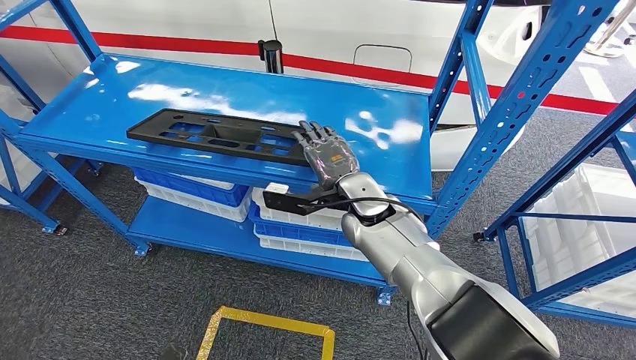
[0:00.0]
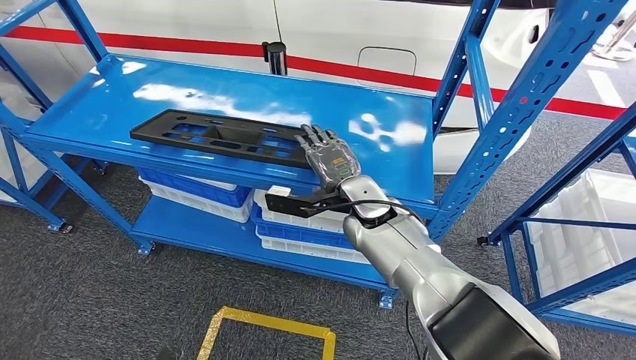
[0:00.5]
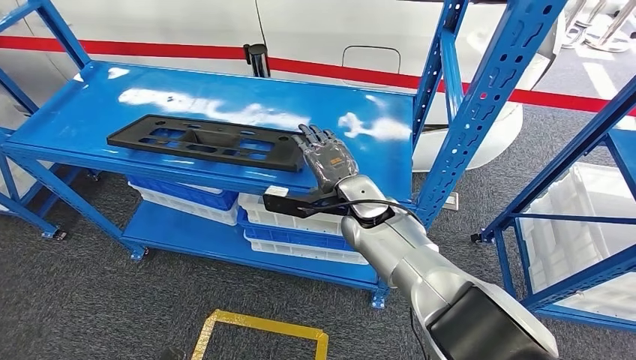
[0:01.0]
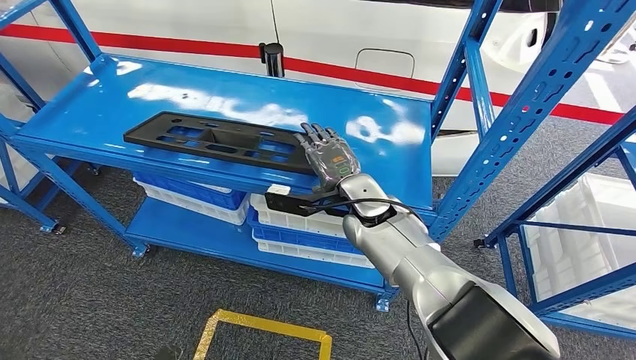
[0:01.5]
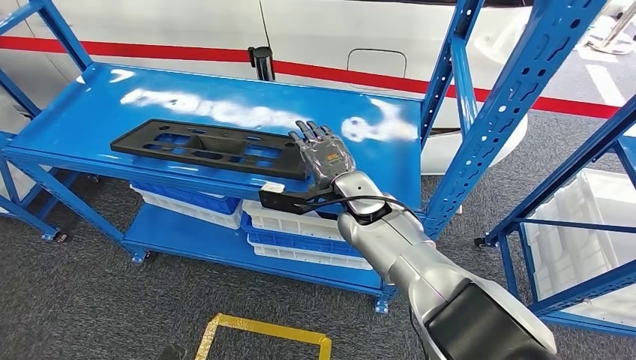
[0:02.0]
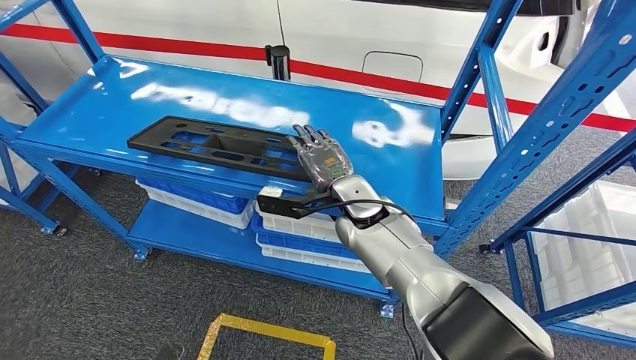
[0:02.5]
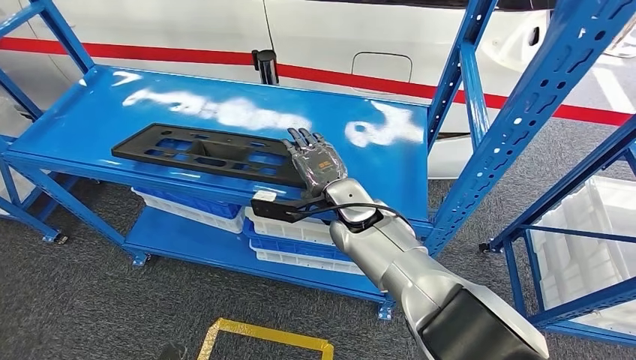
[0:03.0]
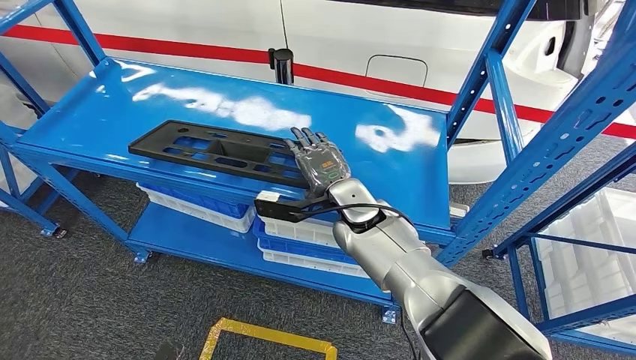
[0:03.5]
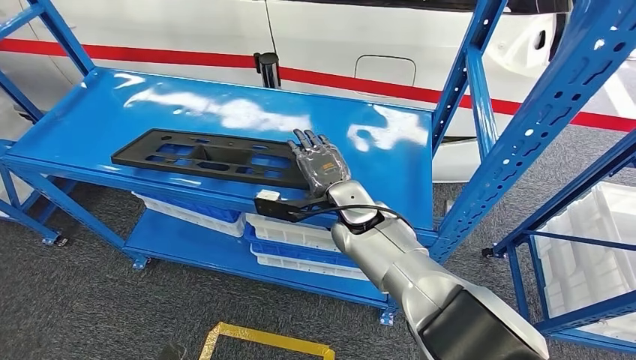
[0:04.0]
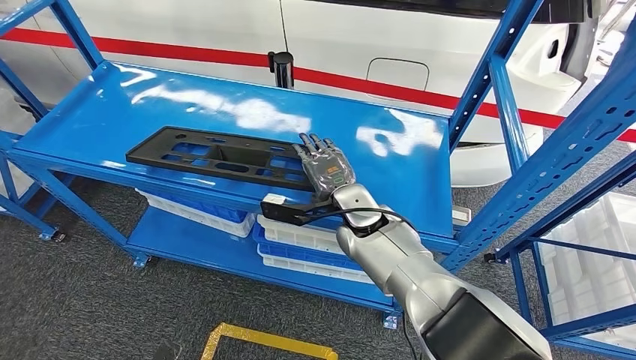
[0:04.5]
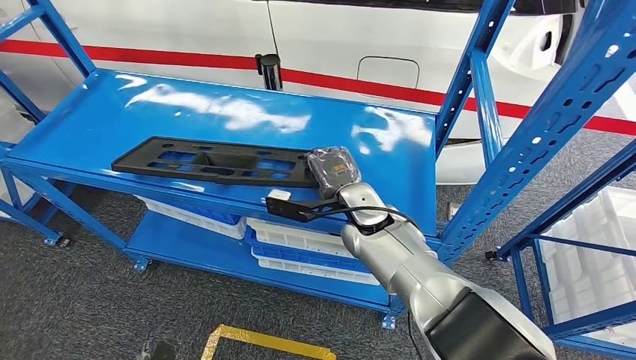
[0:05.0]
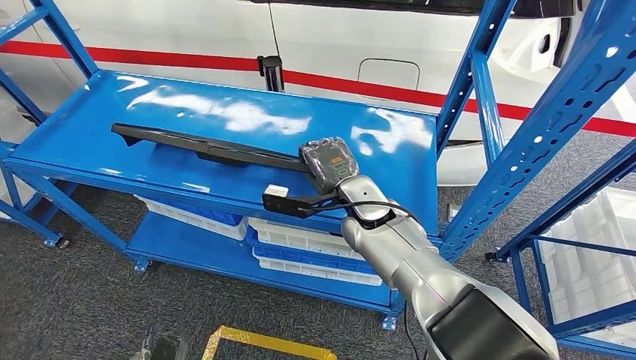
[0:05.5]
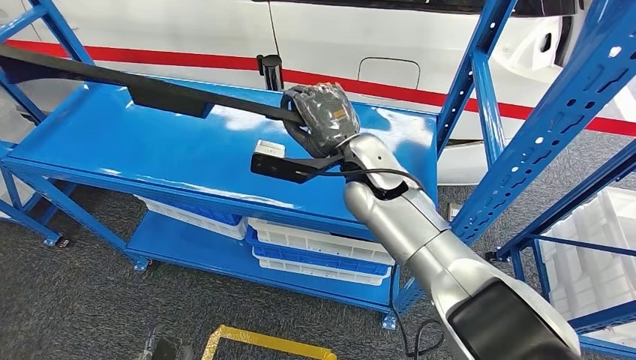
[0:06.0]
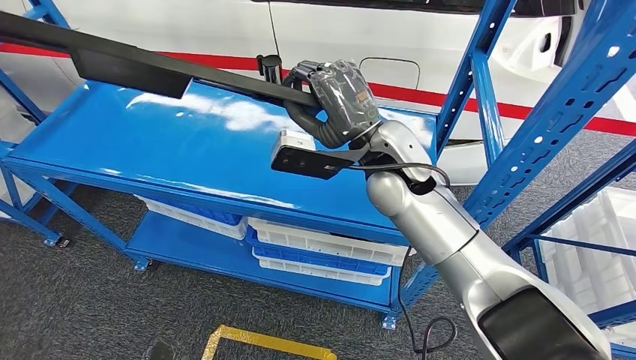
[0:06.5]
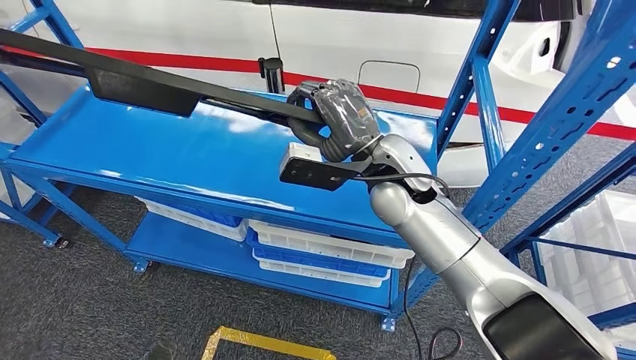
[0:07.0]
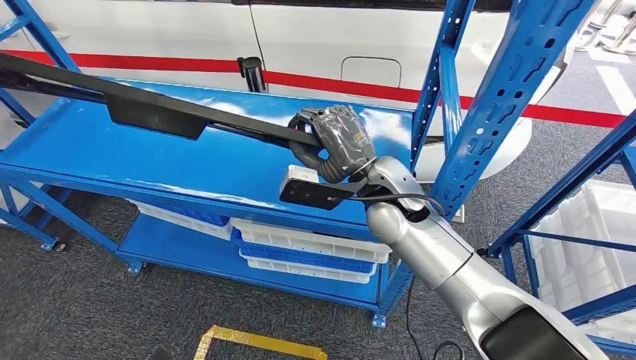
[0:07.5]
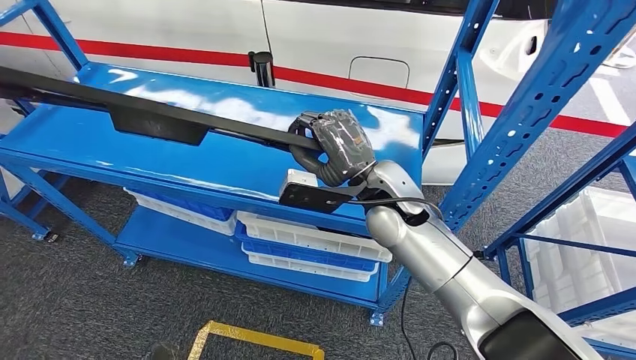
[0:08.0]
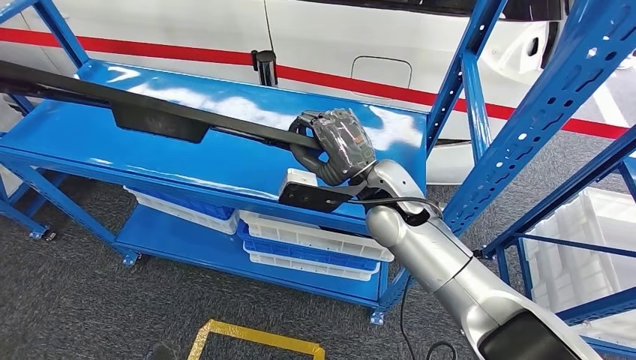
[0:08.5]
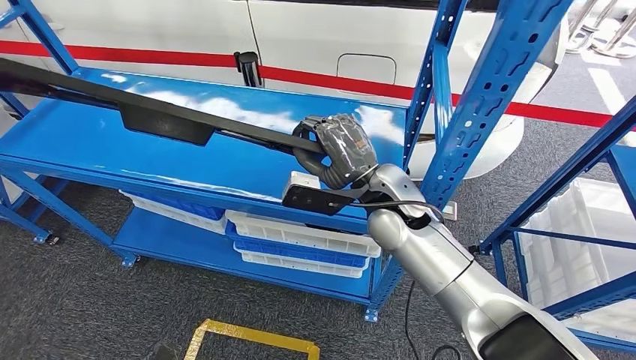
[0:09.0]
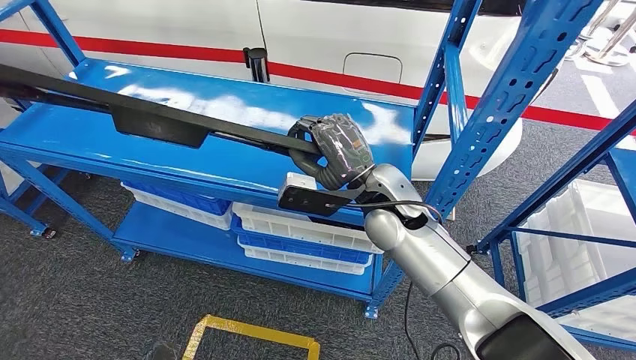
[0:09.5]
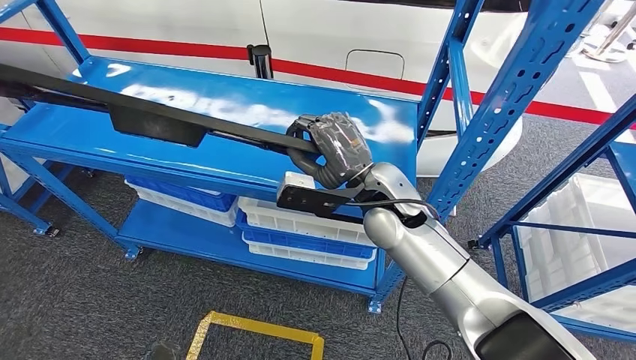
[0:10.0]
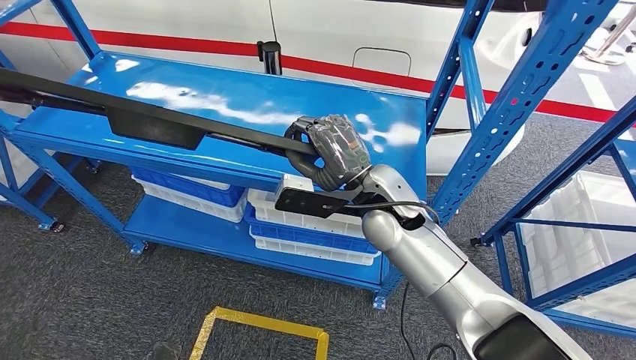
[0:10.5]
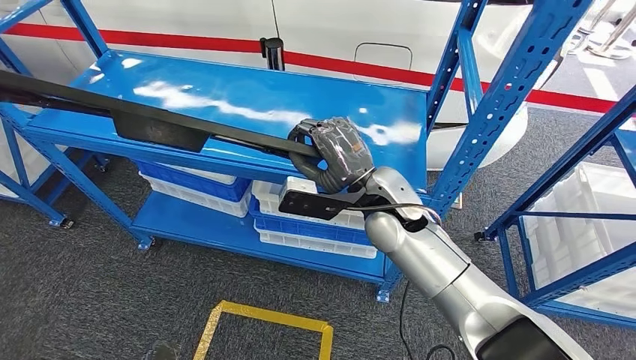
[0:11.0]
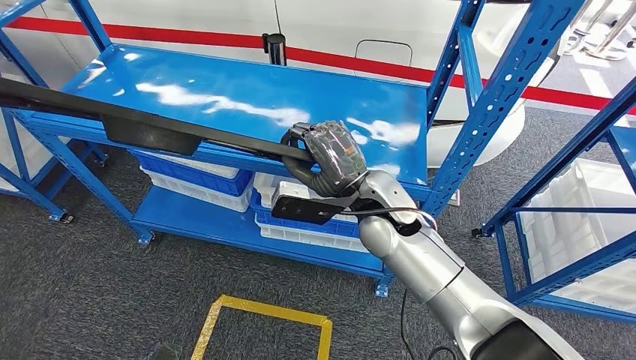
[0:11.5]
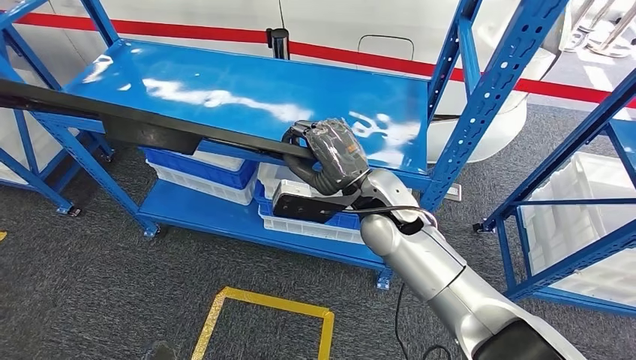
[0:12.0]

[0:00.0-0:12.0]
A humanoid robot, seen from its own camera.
Step, 0:00.0 to 0:06.0: Pick up the large material from the shelf.

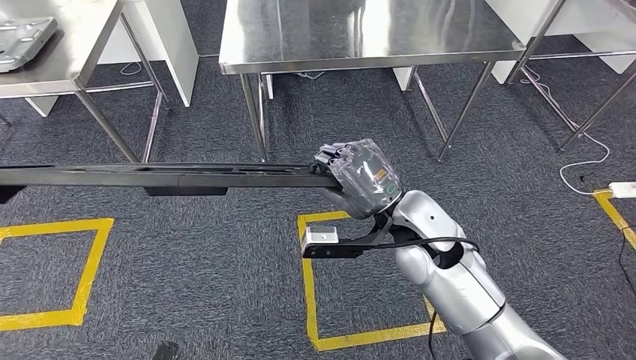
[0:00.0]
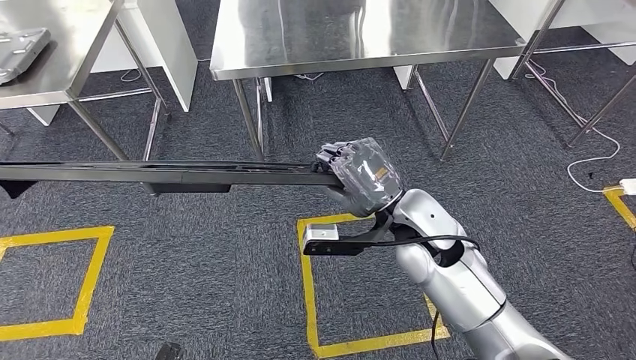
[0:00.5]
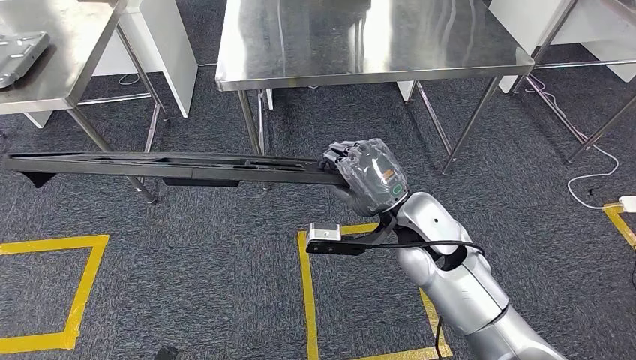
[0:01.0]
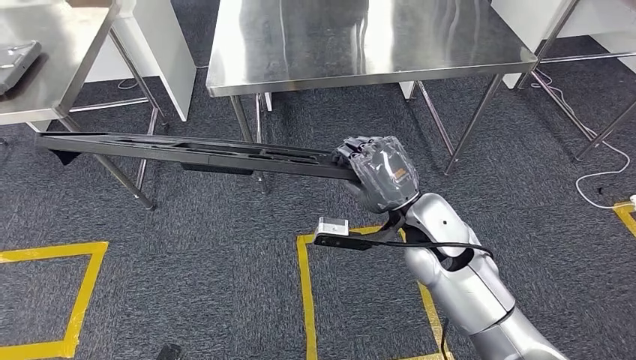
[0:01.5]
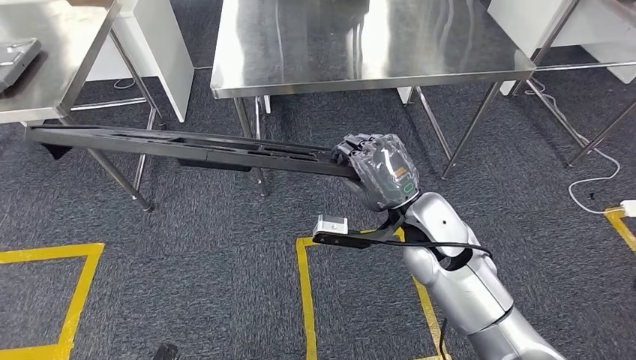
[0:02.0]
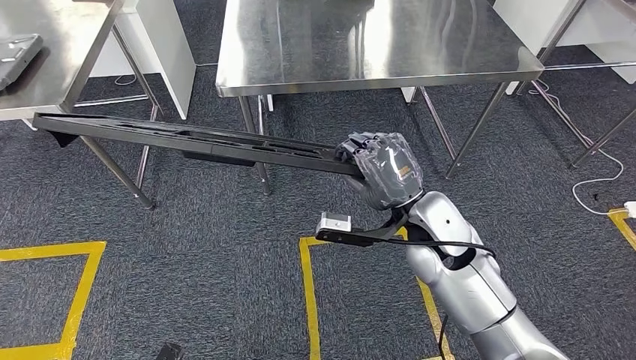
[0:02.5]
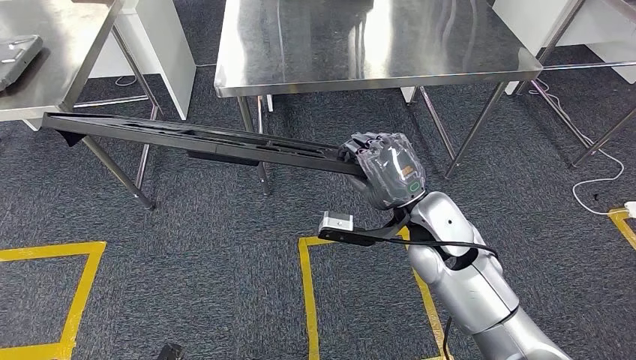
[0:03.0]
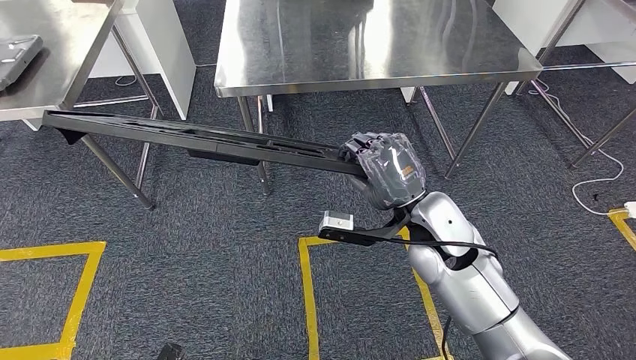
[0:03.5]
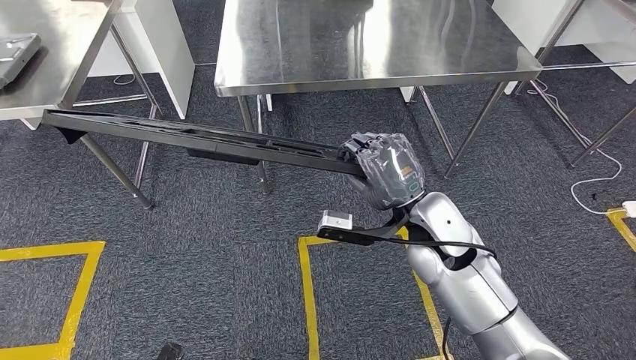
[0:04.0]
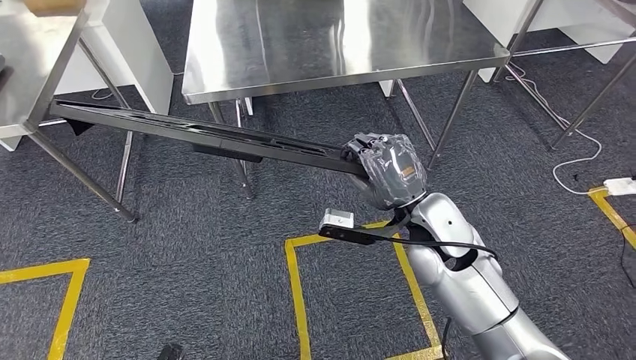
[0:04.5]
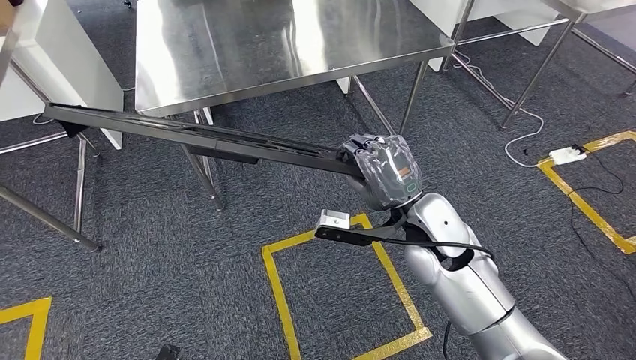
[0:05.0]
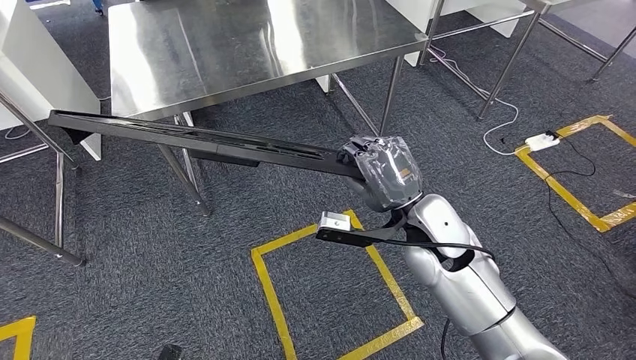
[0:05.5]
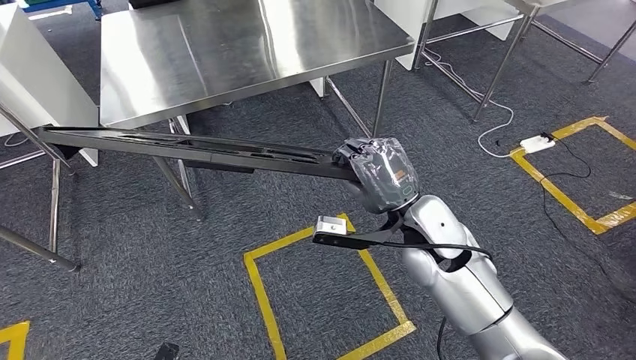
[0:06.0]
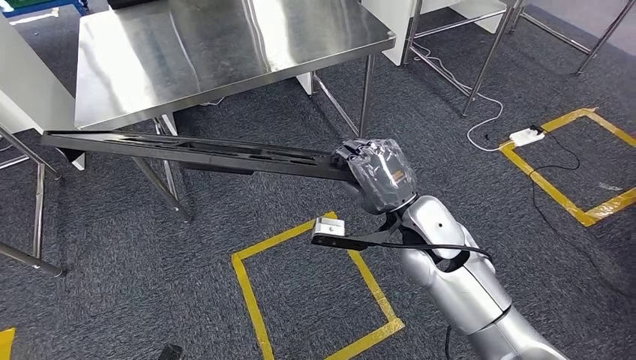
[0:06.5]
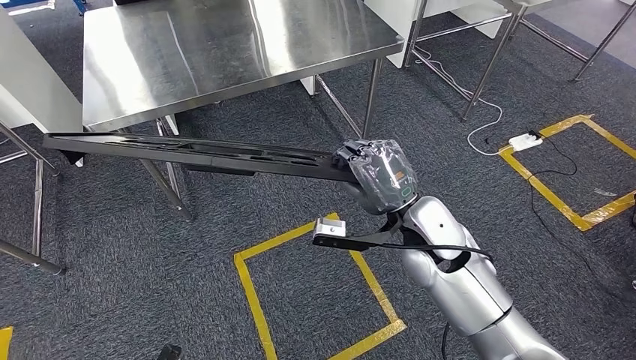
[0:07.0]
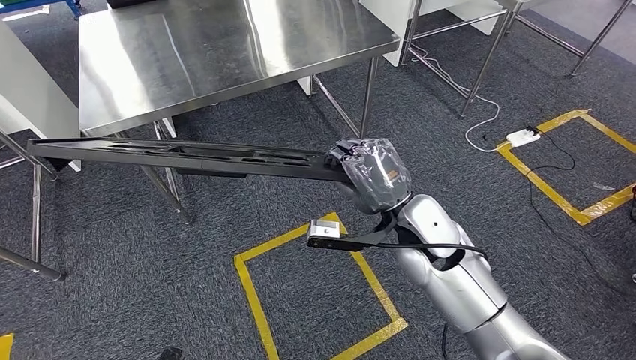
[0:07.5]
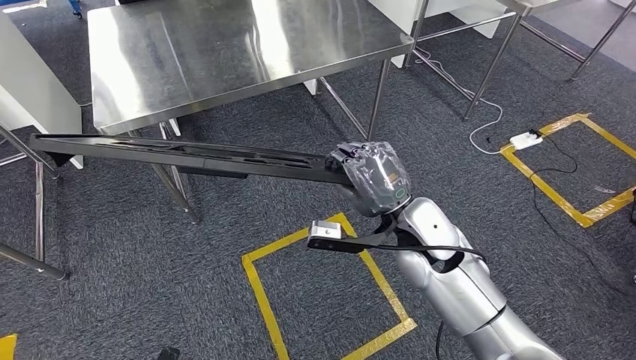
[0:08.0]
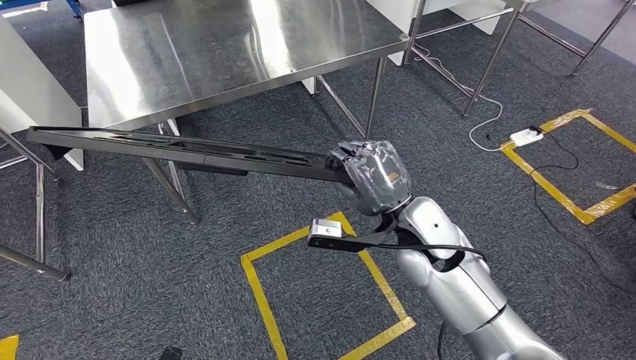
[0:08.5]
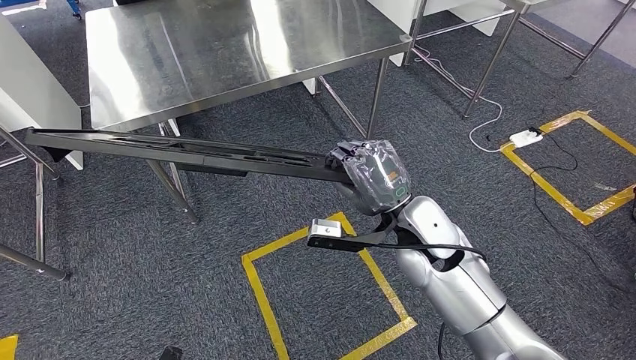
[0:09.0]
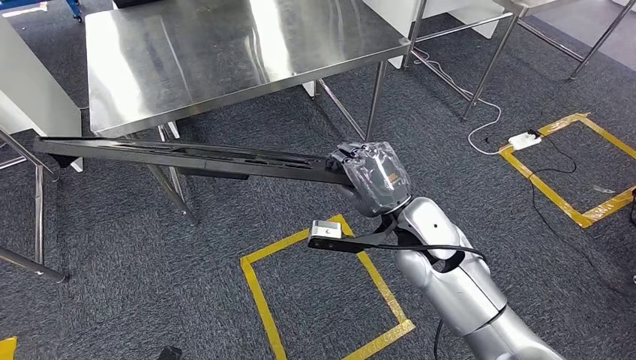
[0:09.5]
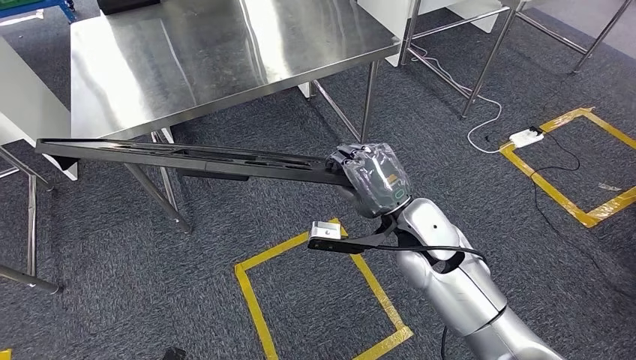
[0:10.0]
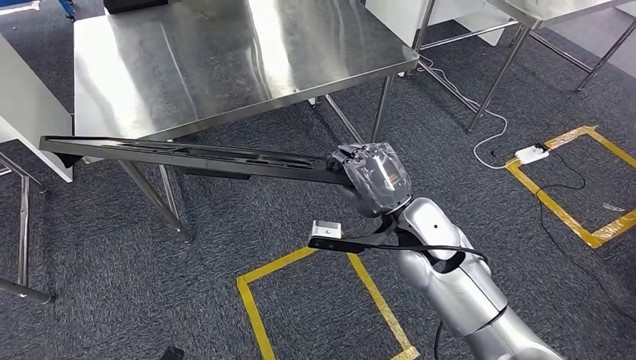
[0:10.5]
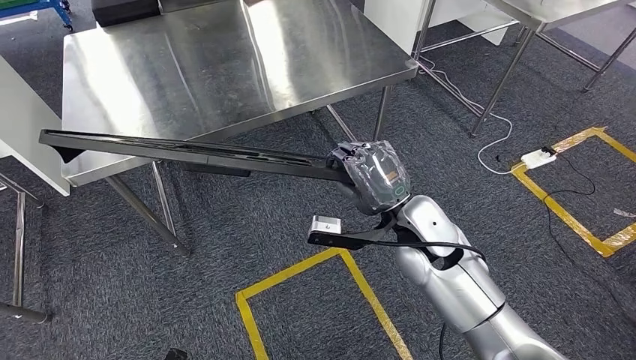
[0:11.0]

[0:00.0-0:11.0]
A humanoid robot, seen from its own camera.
Step, 0:00.0 to 0:09.5: Move the large material to the front of the workbench.
0:02.0 to 0:03.5: Both hands stay about where they are.
0:07.5 to 0:09.0: Neither hand changes place.
